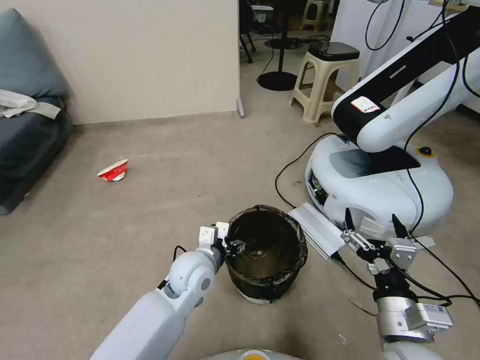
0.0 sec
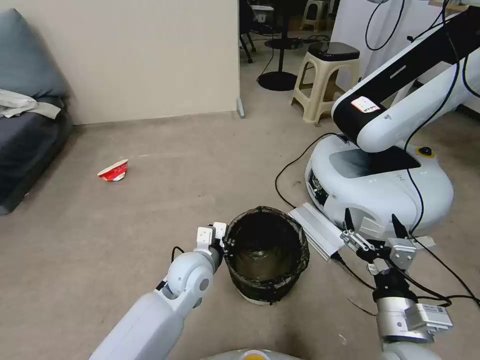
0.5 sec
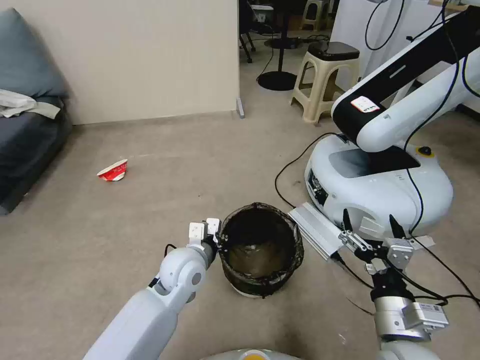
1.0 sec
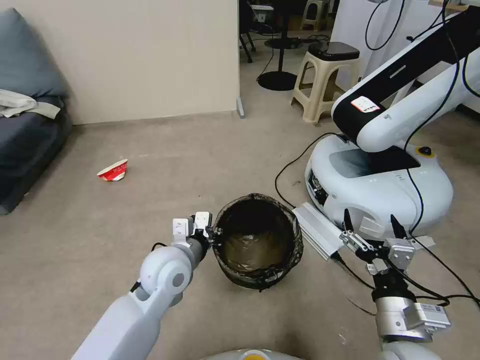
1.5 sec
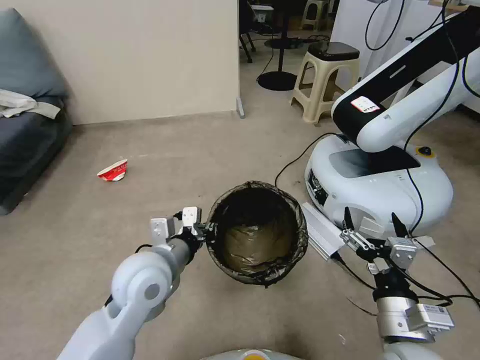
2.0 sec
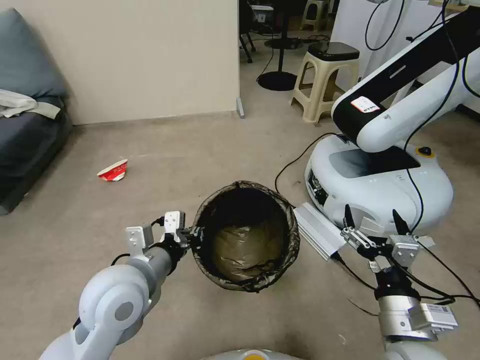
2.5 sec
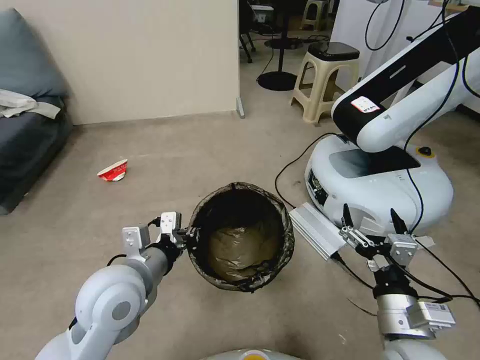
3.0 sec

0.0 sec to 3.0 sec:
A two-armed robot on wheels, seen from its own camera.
Task of the whole recording: Pick up the trash can from the floor.
0.0 sec to 1.5 sec: The left gripper ends up approximately 5 cm from where it was, and closes up.
1.5 sec to 3.0 sec: The left gripper is displaced upward, backward and to the left by approximately 10 cm.
